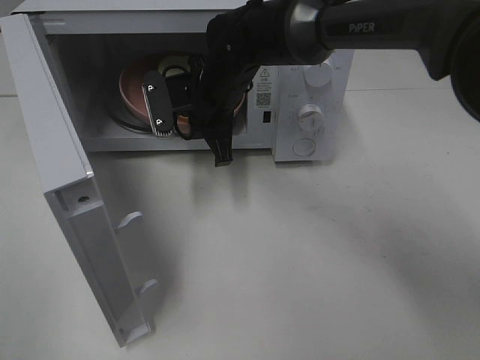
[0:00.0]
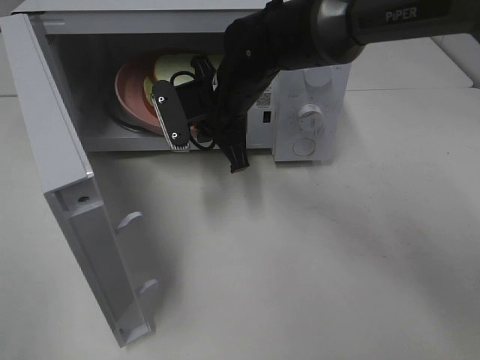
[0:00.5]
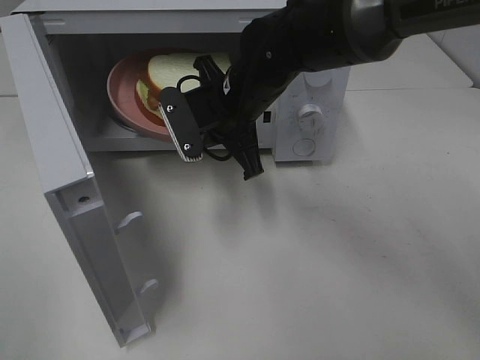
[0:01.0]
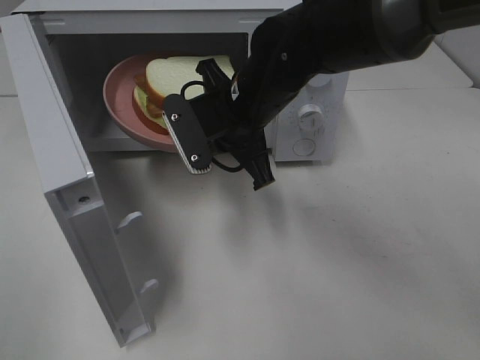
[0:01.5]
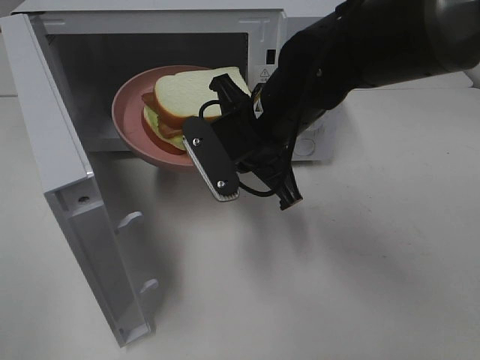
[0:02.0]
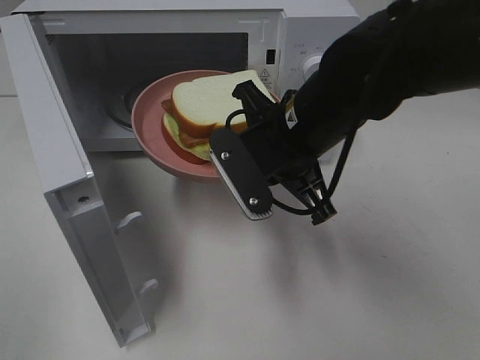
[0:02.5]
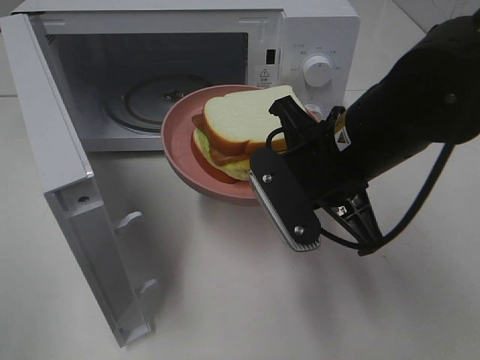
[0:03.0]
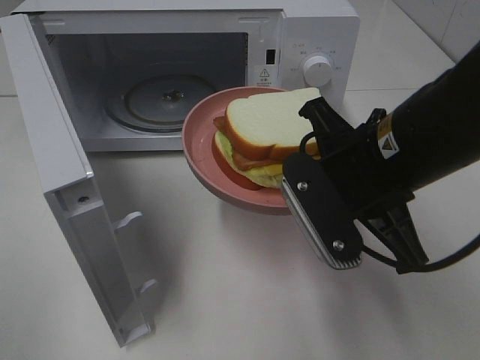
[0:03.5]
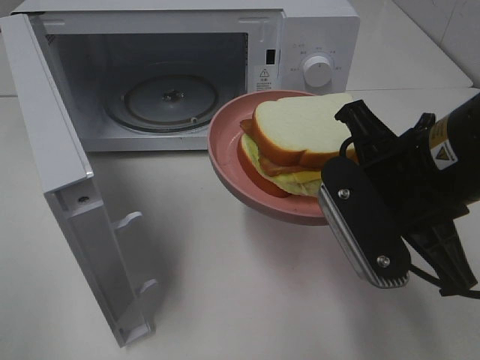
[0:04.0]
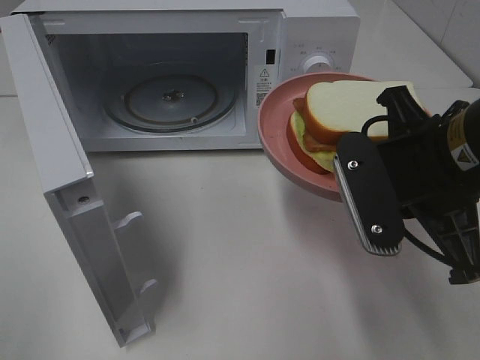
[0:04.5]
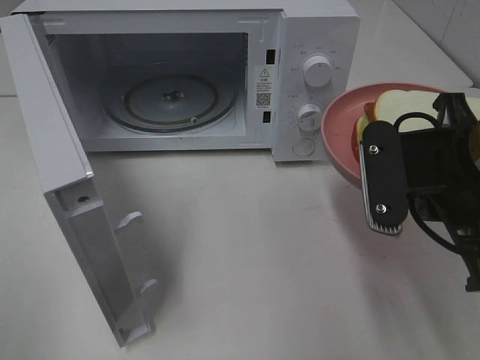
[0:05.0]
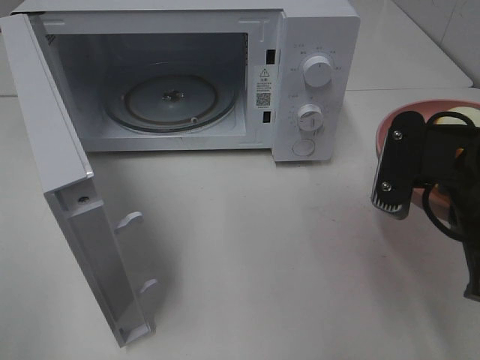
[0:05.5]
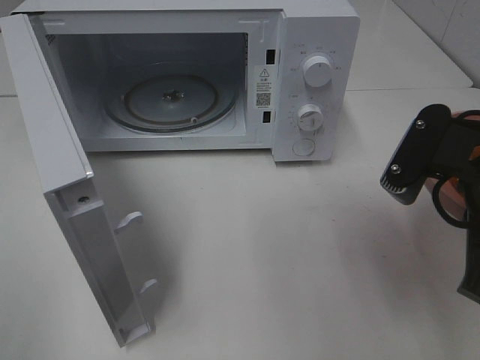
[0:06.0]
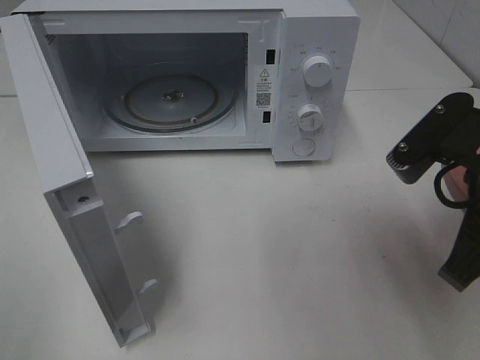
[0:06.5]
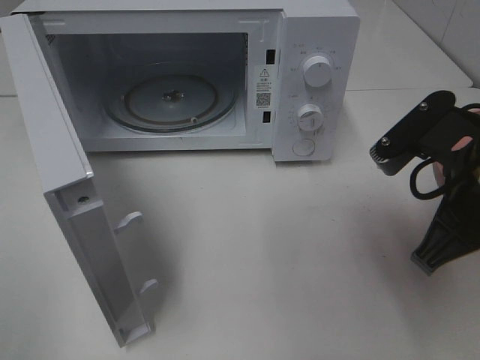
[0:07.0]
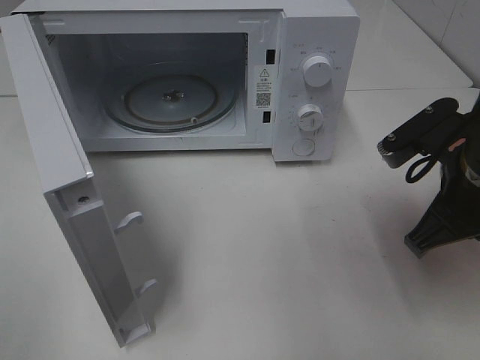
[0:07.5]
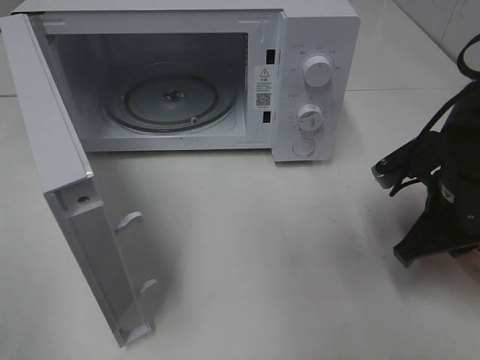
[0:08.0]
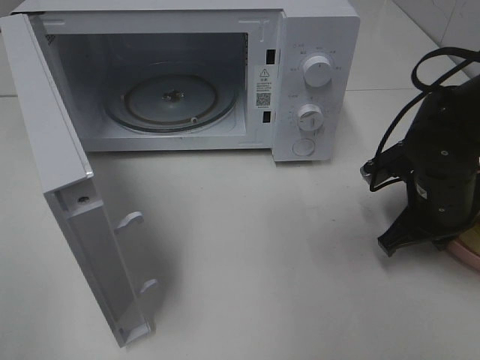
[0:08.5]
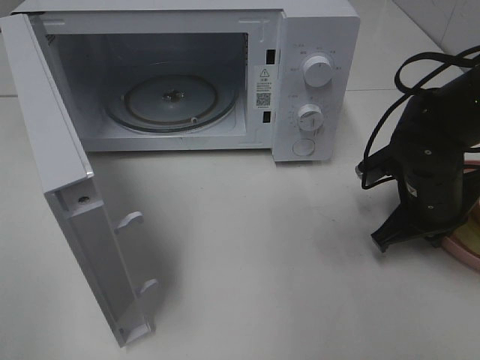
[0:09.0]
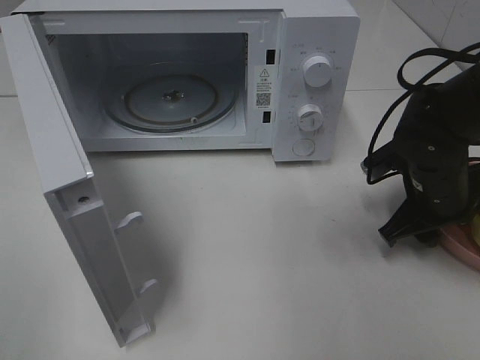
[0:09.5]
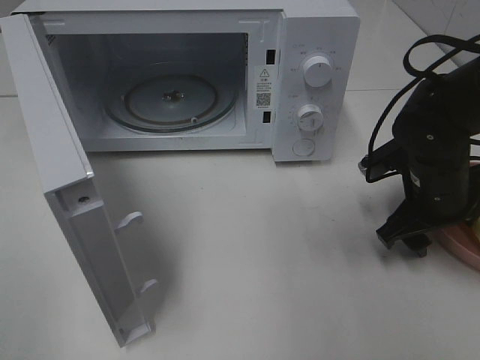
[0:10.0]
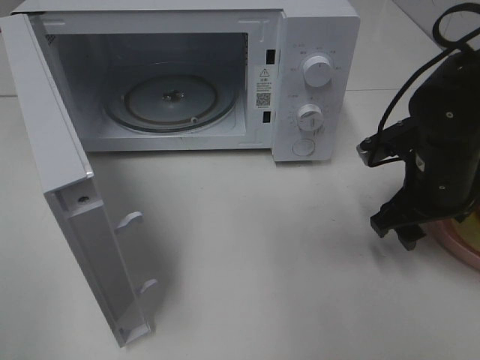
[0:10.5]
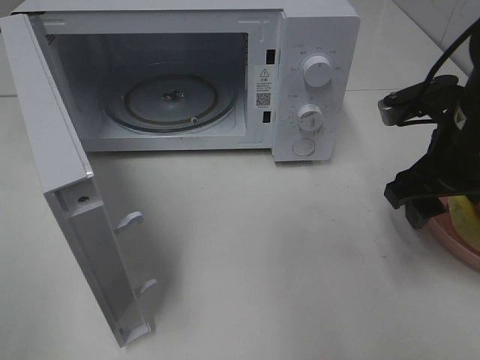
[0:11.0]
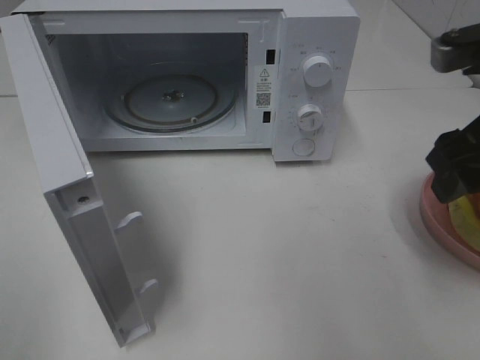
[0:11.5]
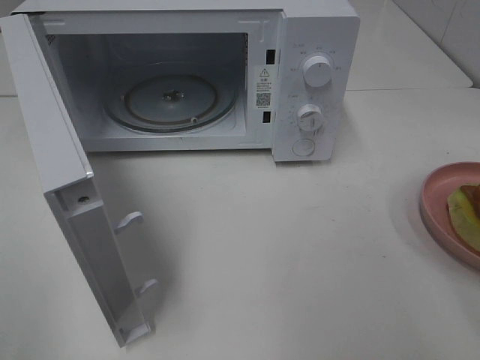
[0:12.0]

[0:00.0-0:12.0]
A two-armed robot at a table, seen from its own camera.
Task of the whole recording: Heat Sandwich.
Step, 0:00.0 to 0:11.0: Right hand: place the plate on the table.
0:00.0 to 0:02.0: The right gripper is displaced backward and to the right by some 10 cm.
0:02.0 to 0:04.0: The right gripper shifts roughly 15 cm backward and to the right.
0:04.0 to 0:06.0: The right gripper moves to the right, approximately 5 cm.
0:06.0 to 0:08.0: The right gripper travels downward and forward by roughly 10 cm.
0:08.0 to 0:10.0: The right gripper shifts by approximately 5 cm, and opens.
0:10.0 to 0:12.0: The right gripper heads upward and backward, covering some 25 cm.

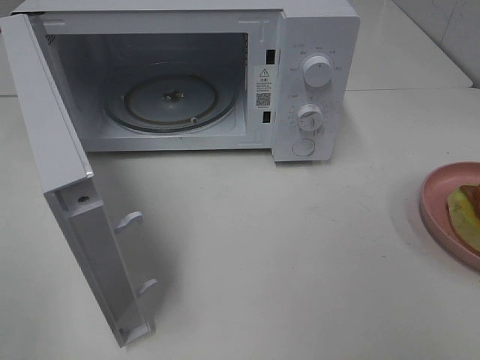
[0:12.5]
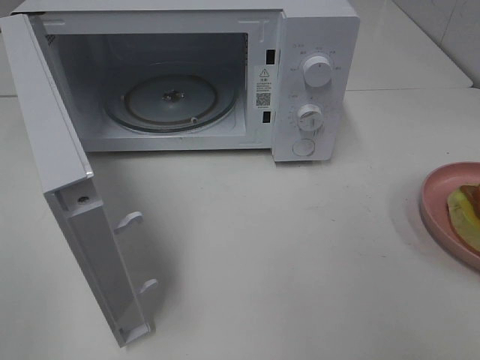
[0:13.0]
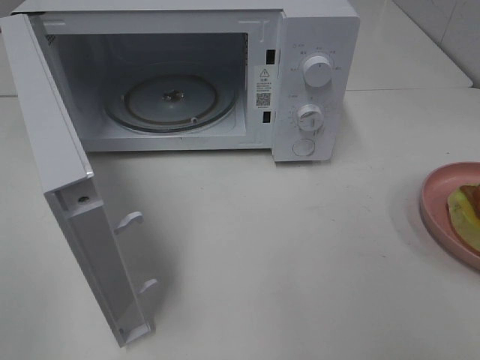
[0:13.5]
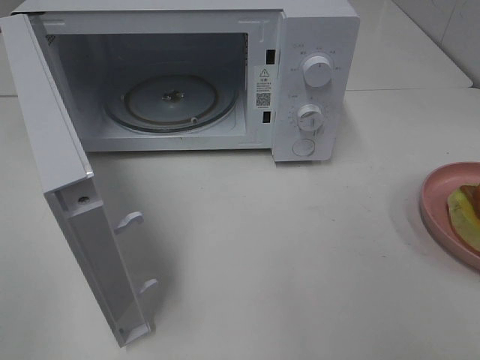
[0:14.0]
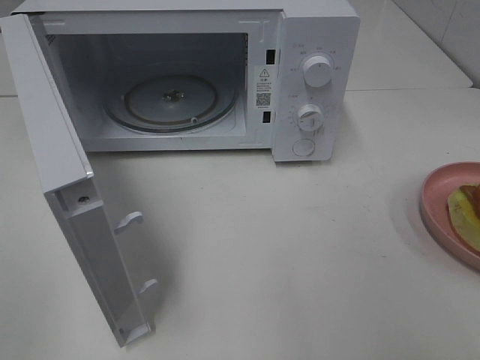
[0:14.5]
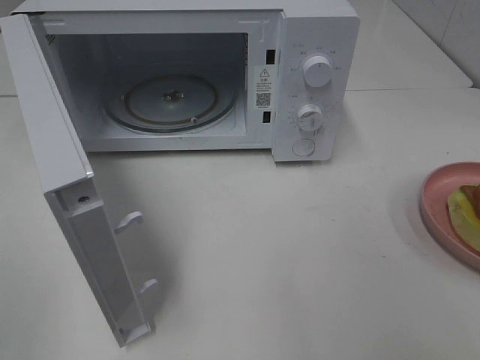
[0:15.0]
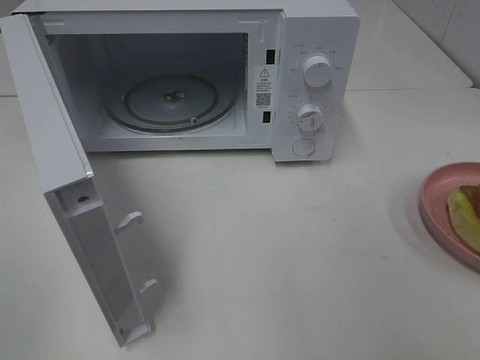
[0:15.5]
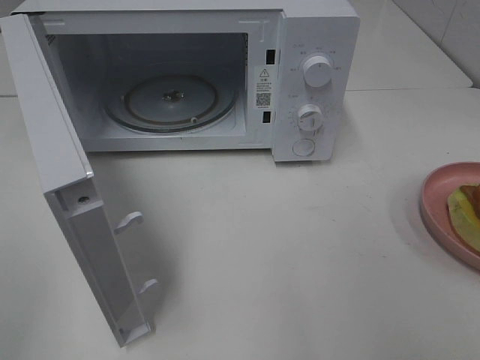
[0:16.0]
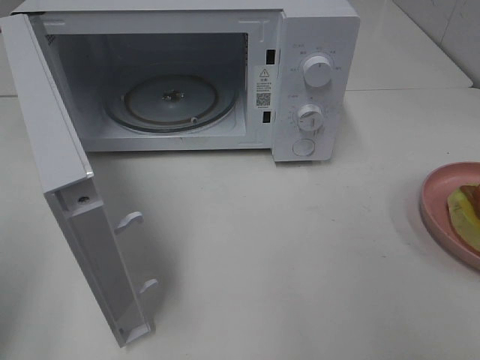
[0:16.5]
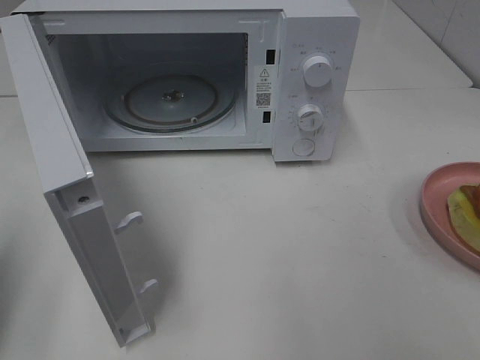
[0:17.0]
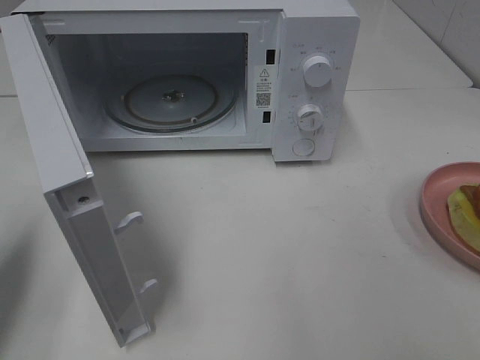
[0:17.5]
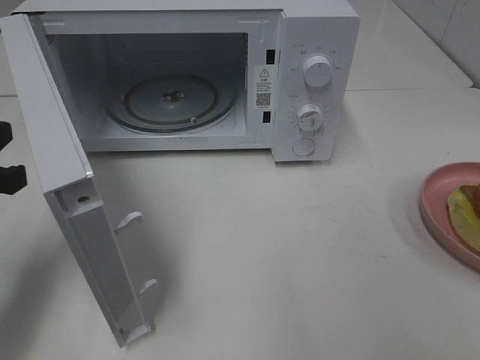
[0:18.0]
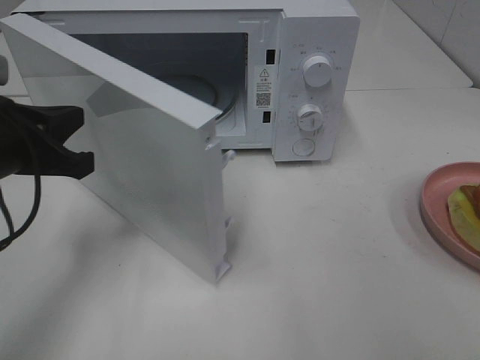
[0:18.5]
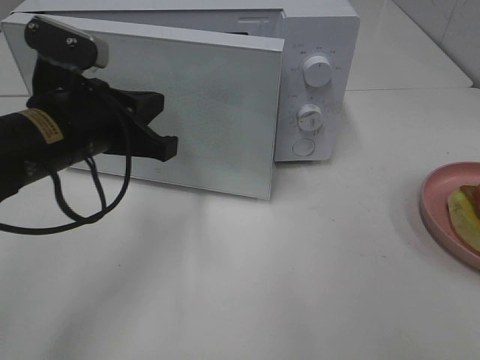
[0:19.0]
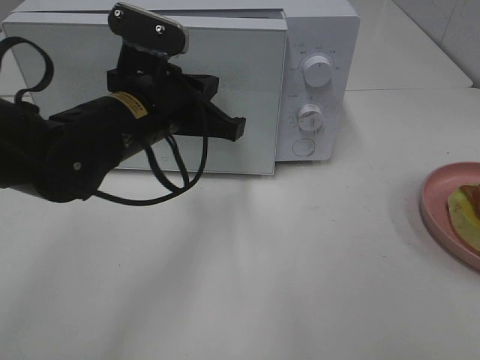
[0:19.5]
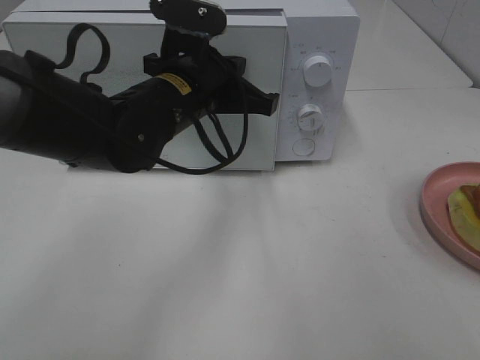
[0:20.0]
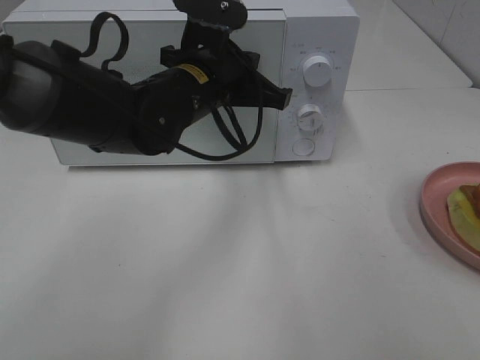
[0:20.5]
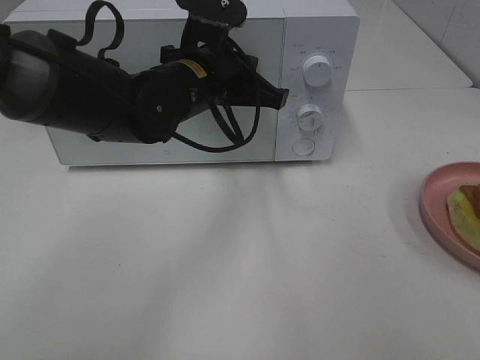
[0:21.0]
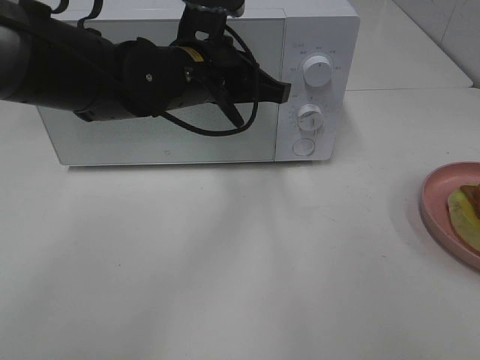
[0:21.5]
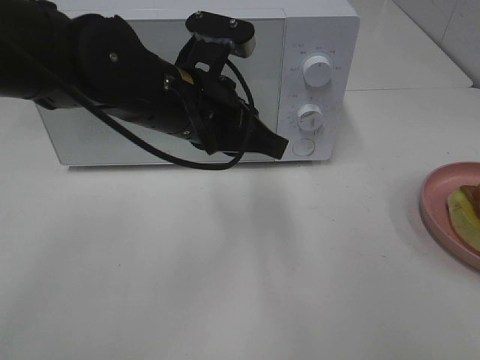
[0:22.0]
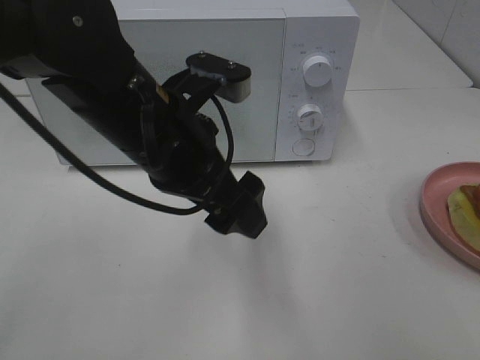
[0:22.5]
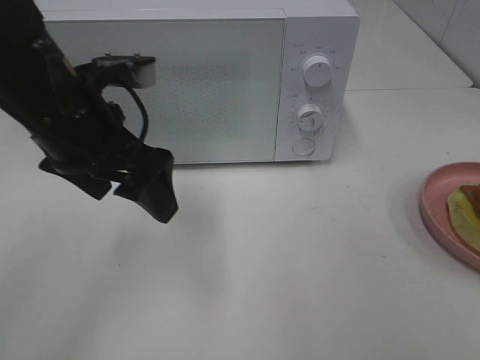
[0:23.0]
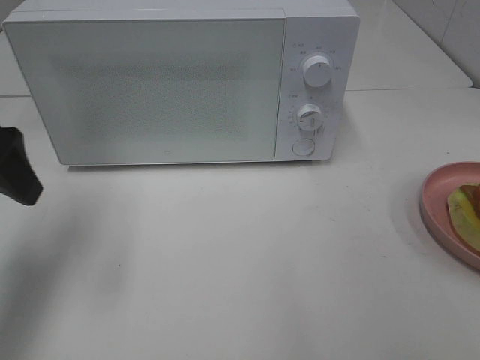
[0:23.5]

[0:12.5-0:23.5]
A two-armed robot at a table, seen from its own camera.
Task of the whole recording: Heat Sandwich.
Step, 0:12.5 to 0:22.0: Left hand: close the microwave door.
0:16.0 to 0:18.0: The left gripper is displaced forward and downward by about 20 cm, and closes its fingers.
0:18.0 to 0:20.0: The left gripper goes about 25 cm to the right and forward.
0:20.0 to 0:21.5: There are only small adjustments of the grippers.
0:21.5 to 0:23.5: The left gripper is displaced to the left by about 25 cm, and opens up.

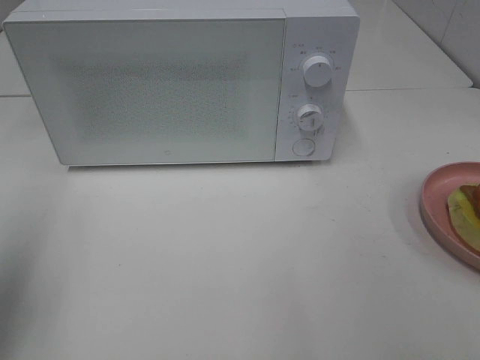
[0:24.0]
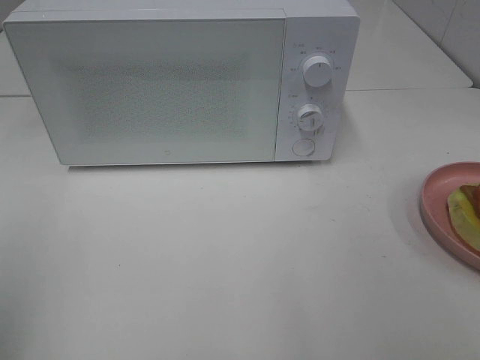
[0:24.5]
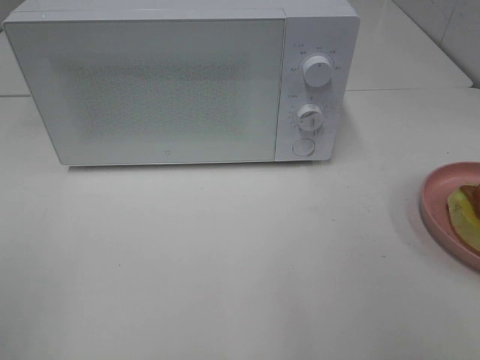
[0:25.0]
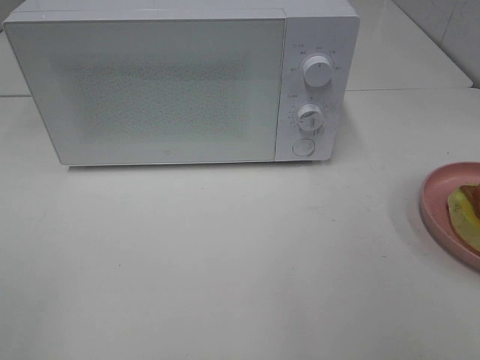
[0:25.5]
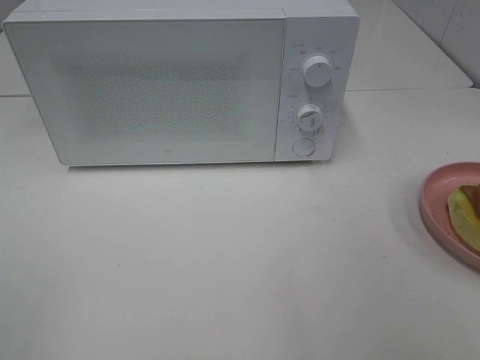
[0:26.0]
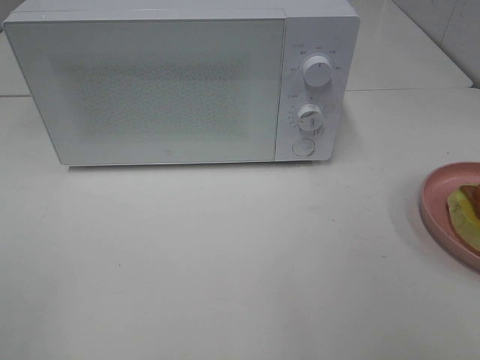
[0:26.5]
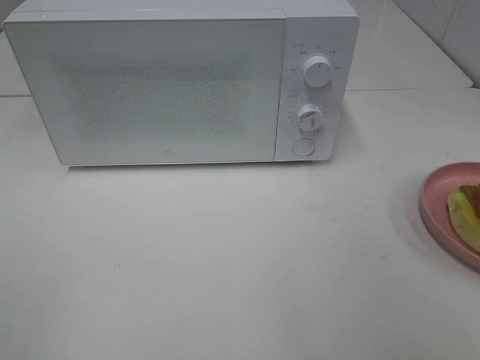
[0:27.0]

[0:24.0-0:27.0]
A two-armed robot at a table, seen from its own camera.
Task of the whole recording: Heat Sandwich.
0:24.0 to 0:25.5: The left gripper travels backward by approximately 15 cm.
0:25.5 to 0:27.0: Both grippers stay about where they are.
